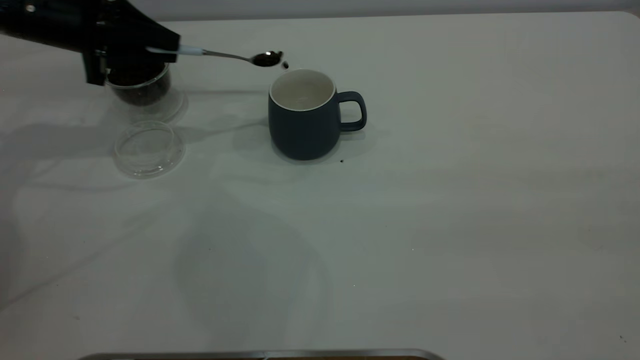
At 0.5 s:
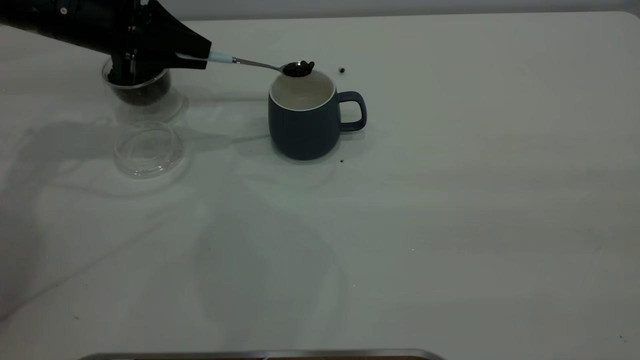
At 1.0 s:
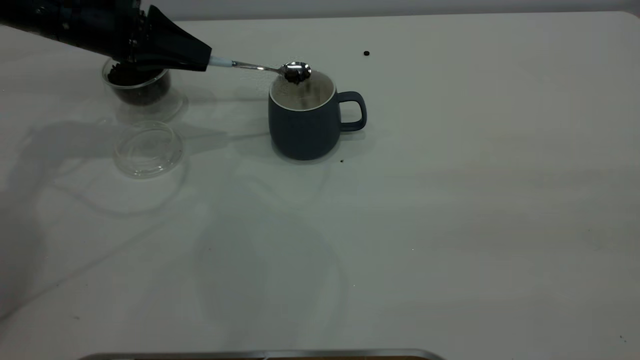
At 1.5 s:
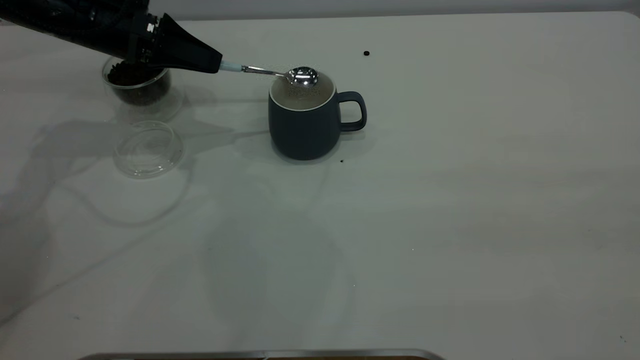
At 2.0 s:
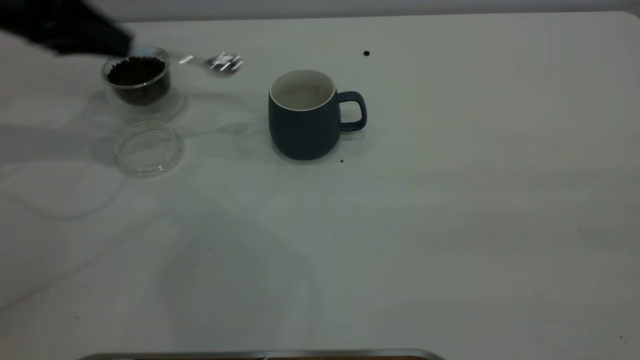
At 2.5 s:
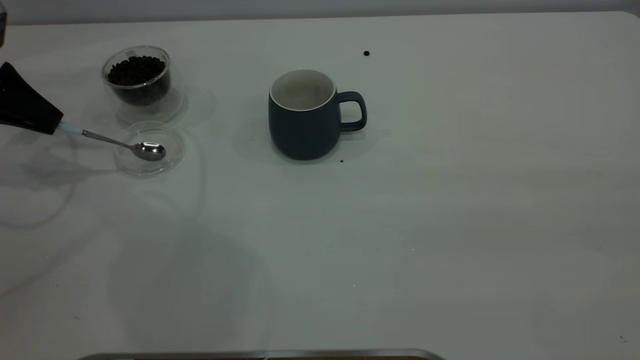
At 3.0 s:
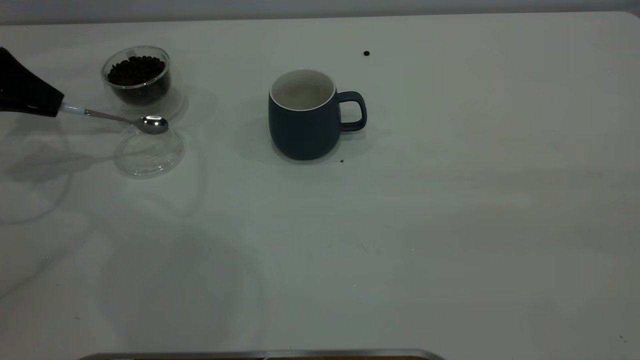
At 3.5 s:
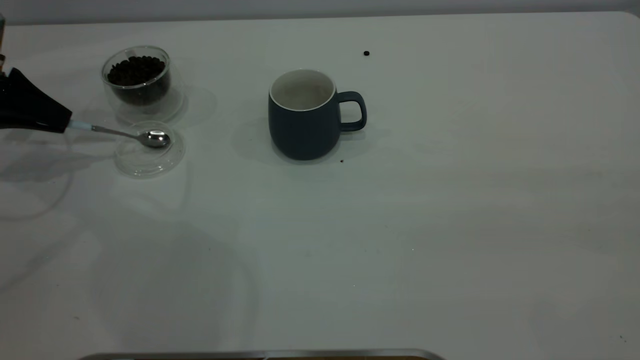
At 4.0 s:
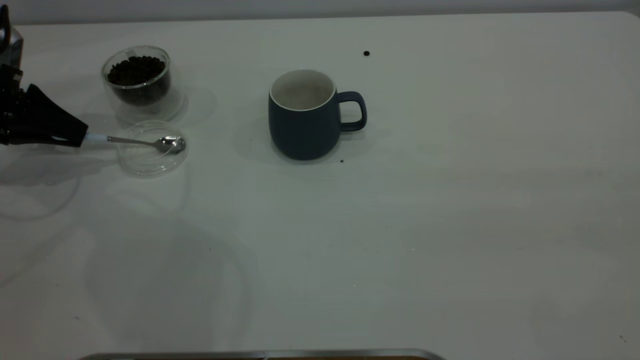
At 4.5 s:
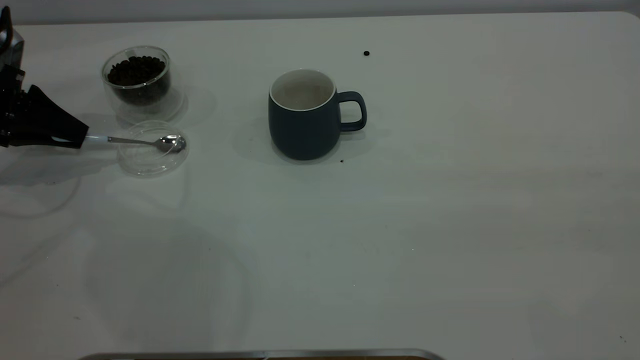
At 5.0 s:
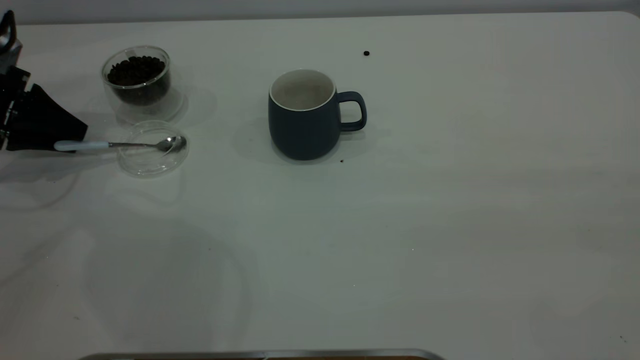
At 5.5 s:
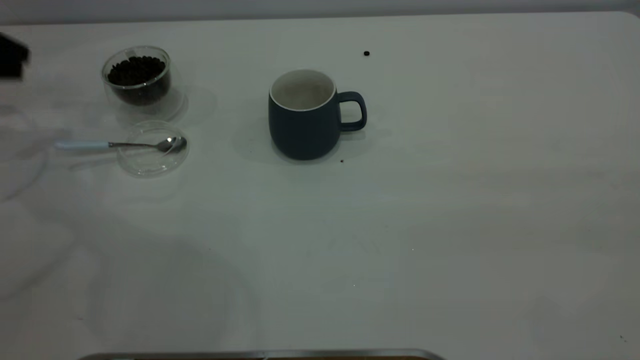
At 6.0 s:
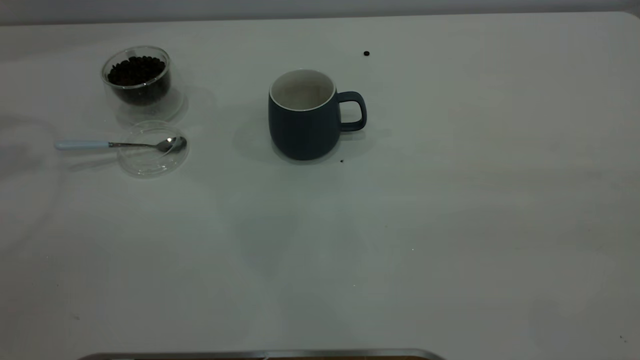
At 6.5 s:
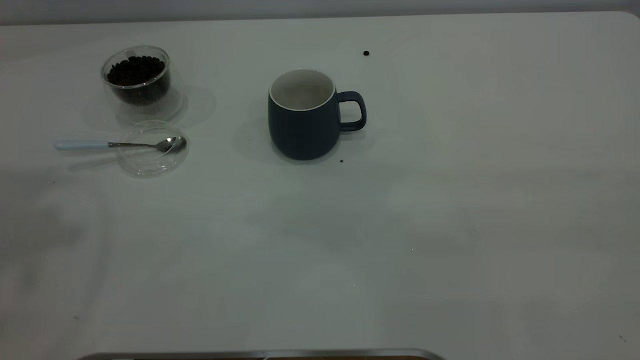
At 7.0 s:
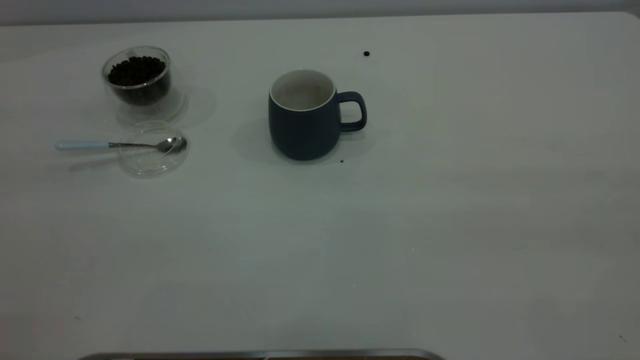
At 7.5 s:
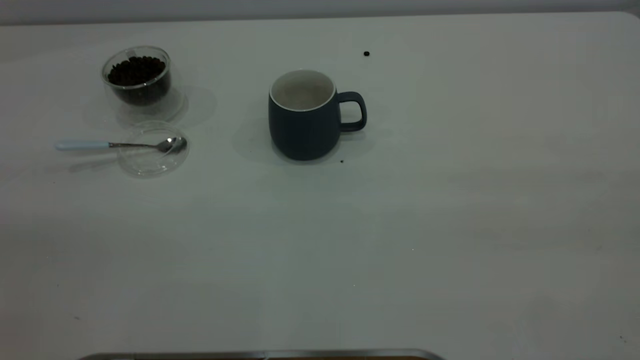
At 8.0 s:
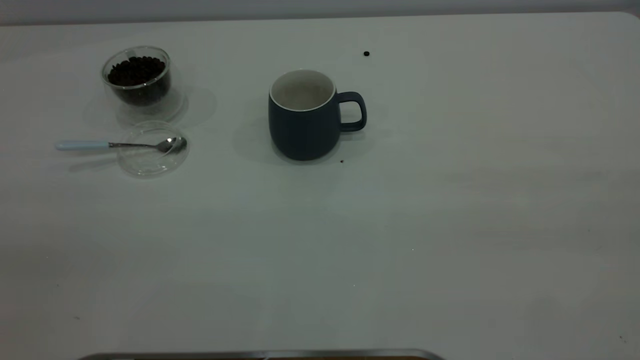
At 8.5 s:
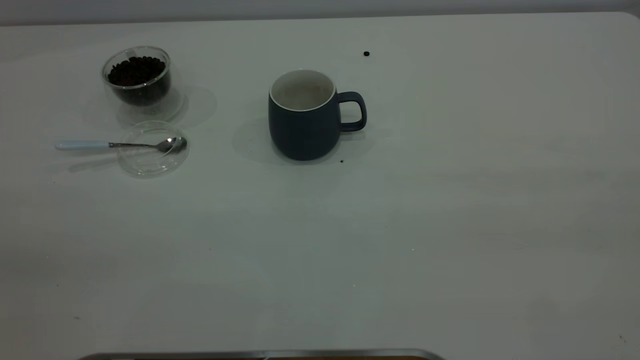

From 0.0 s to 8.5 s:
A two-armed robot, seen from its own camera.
Task of the whole recording: the right gripper place the grey cup in the center of the table, the left gripper take the blue spoon from the cup lid and scoop out the coffee beans from the coffee cup and put them into the grey cup, the left gripper put the spoon back into the cup lid.
Step, from 2.0 s to 5.0 s: Place the spoon back in its original place.
From 0.0 s to 2.0 s: The left gripper heads to the left, covering about 5 cm.
From 2.0 s to 4.0 s: The left gripper travels downward and to the left by about 10 cm.
From 4.0 s to 6.5 s: The left gripper shifts about 40 cm upward, and opens.
